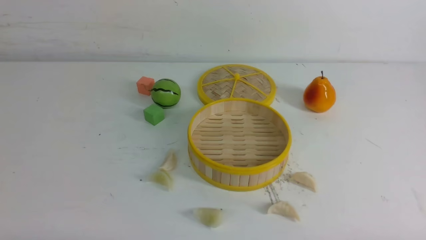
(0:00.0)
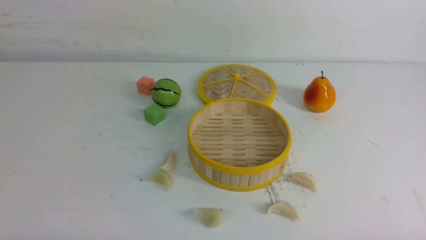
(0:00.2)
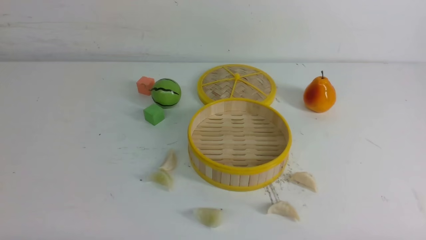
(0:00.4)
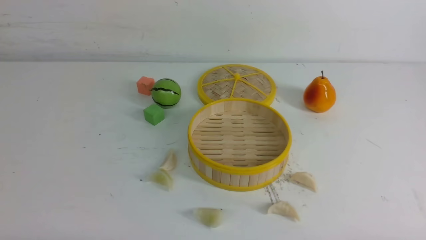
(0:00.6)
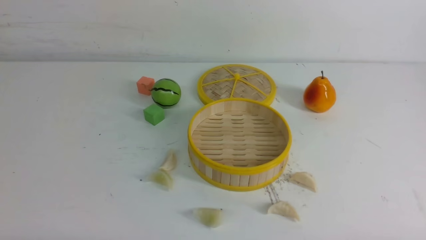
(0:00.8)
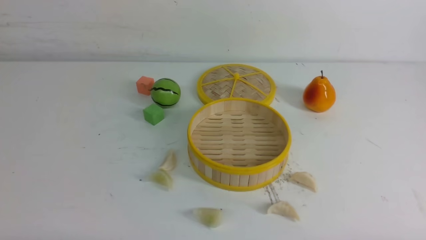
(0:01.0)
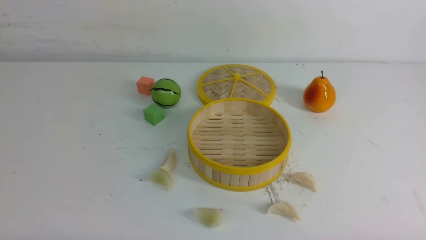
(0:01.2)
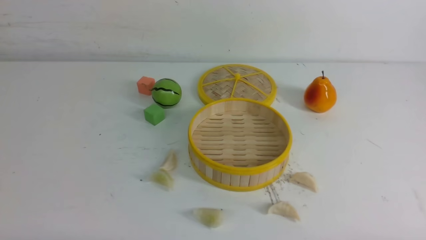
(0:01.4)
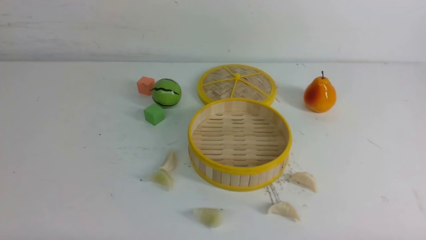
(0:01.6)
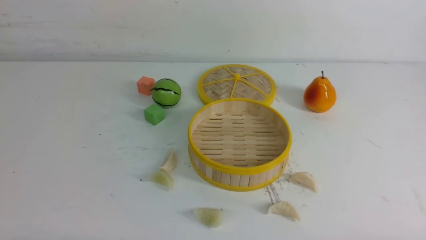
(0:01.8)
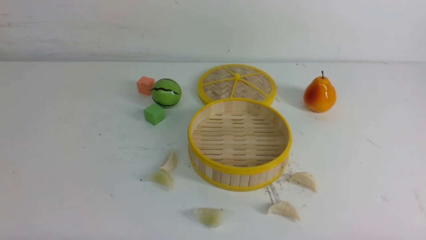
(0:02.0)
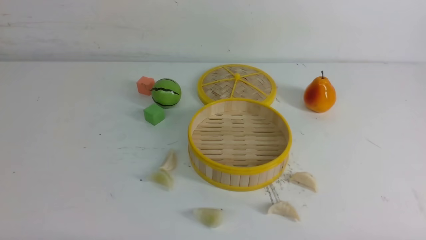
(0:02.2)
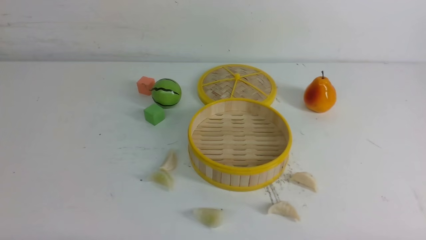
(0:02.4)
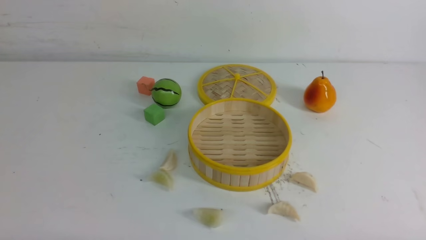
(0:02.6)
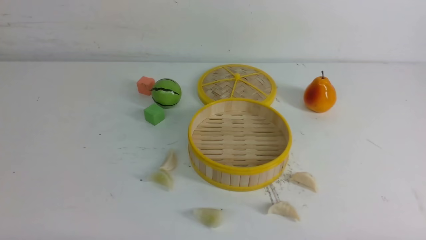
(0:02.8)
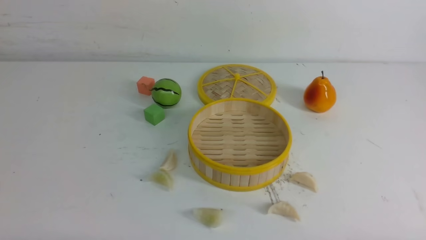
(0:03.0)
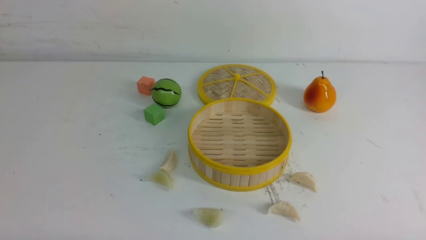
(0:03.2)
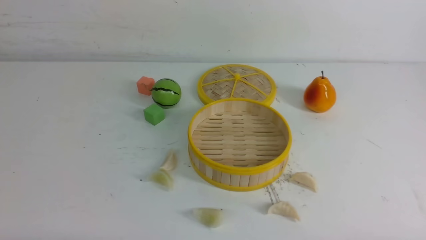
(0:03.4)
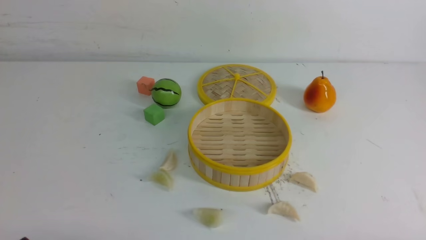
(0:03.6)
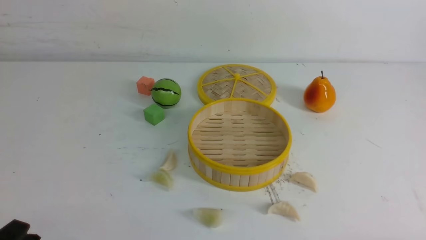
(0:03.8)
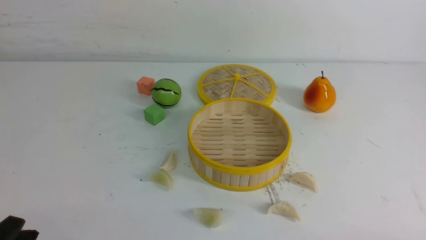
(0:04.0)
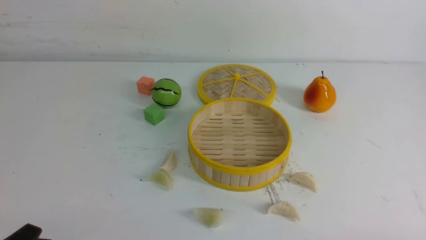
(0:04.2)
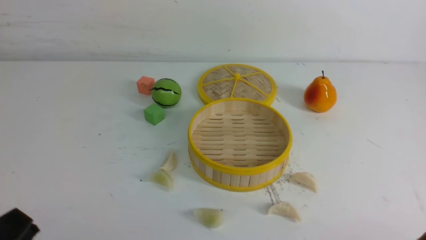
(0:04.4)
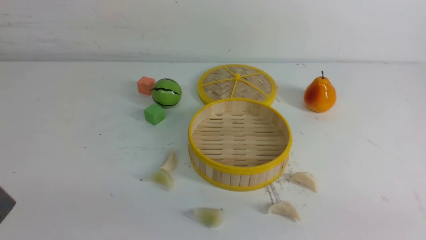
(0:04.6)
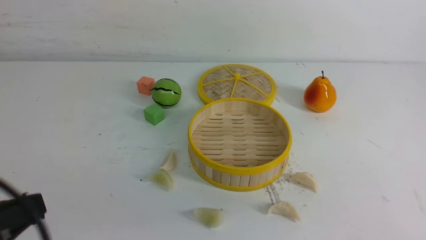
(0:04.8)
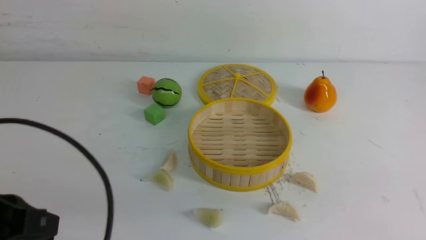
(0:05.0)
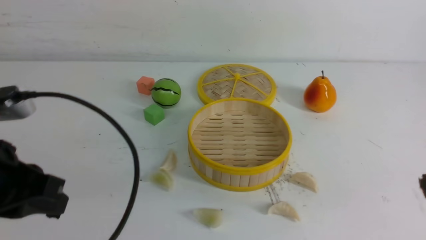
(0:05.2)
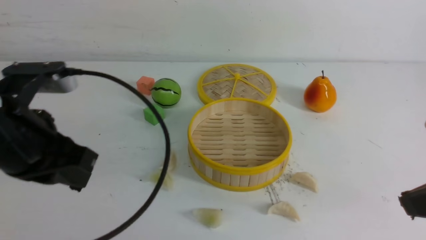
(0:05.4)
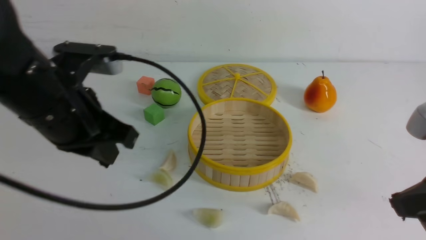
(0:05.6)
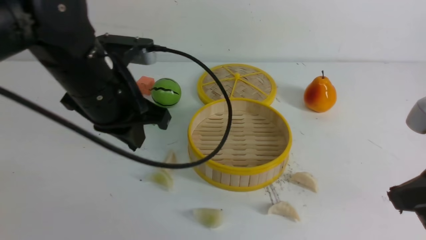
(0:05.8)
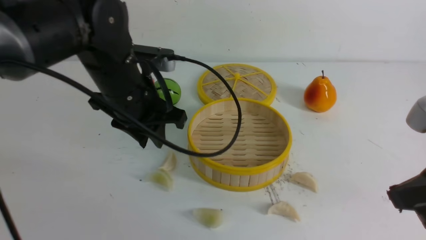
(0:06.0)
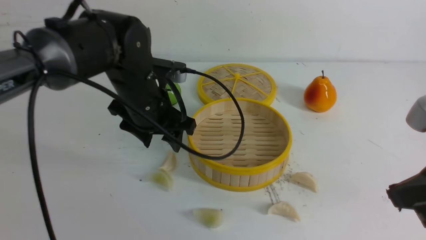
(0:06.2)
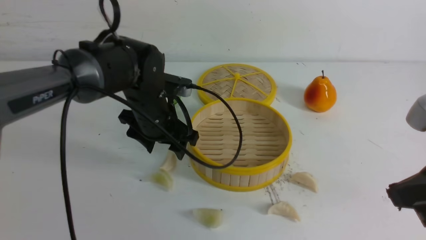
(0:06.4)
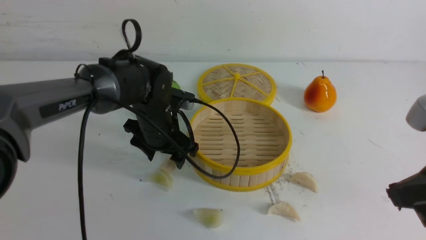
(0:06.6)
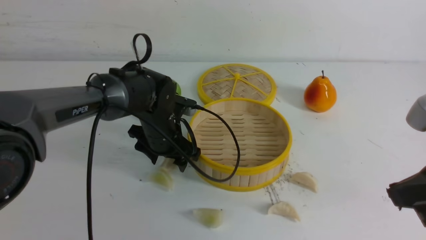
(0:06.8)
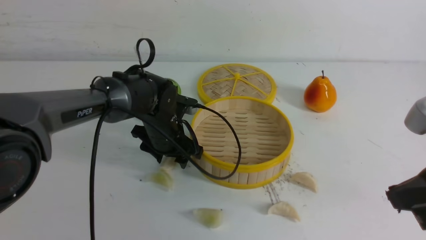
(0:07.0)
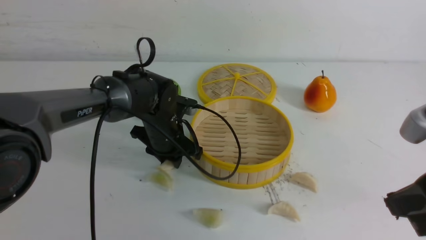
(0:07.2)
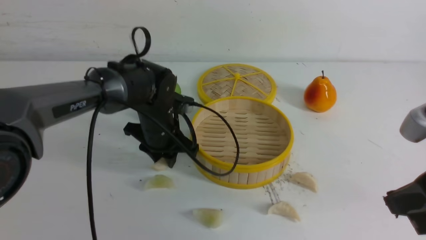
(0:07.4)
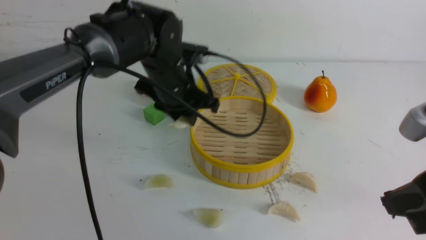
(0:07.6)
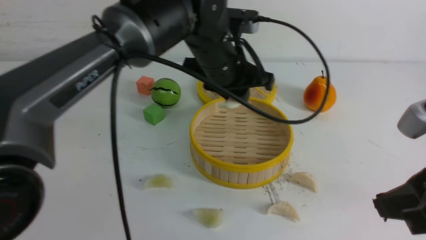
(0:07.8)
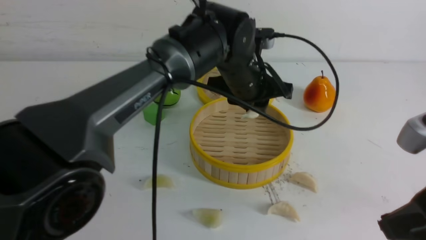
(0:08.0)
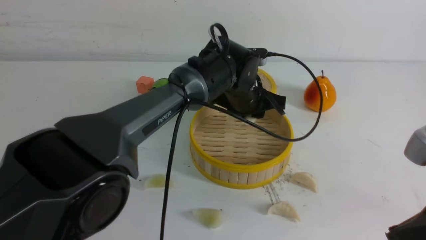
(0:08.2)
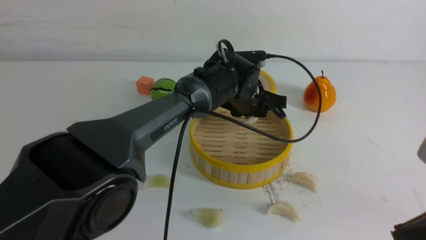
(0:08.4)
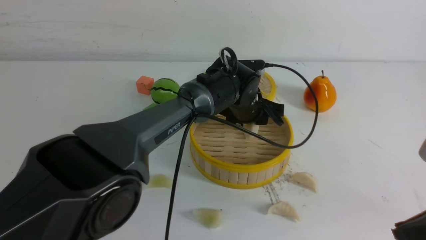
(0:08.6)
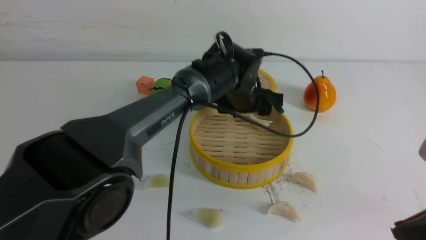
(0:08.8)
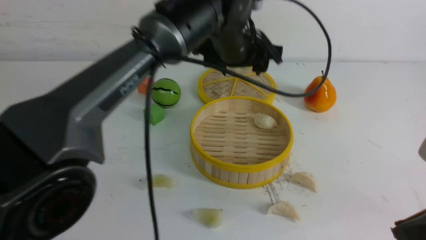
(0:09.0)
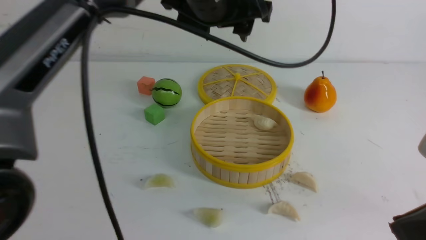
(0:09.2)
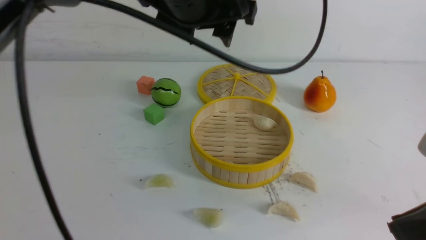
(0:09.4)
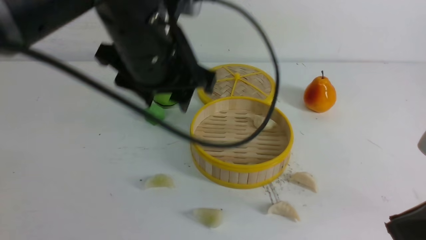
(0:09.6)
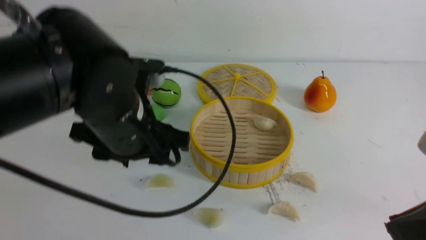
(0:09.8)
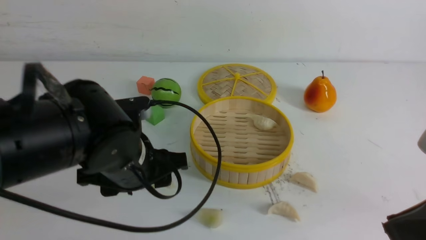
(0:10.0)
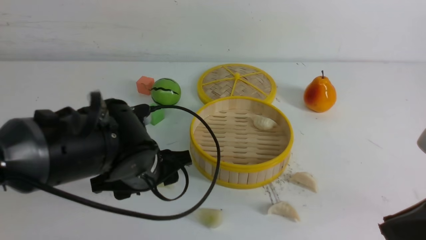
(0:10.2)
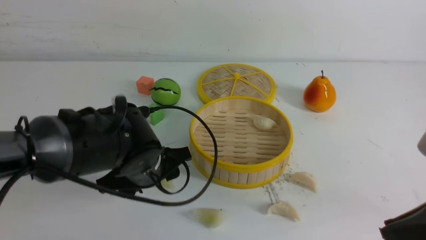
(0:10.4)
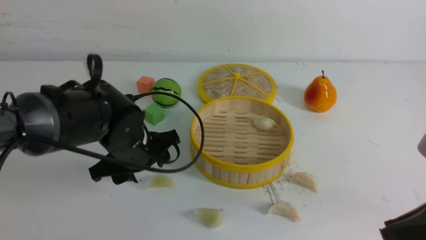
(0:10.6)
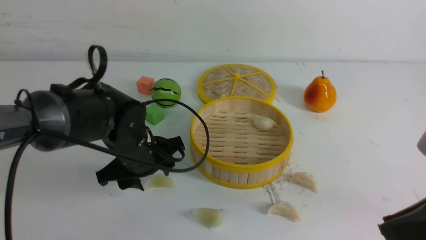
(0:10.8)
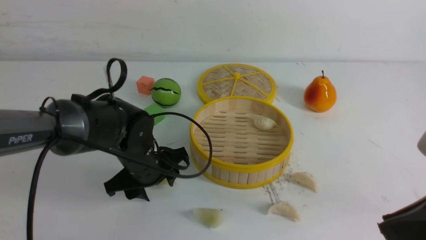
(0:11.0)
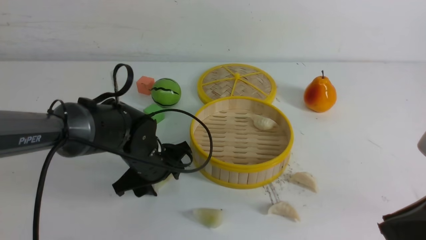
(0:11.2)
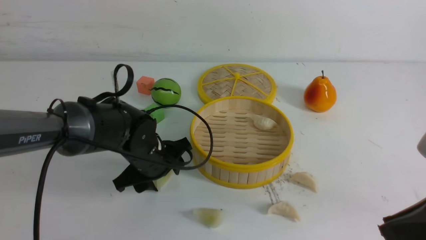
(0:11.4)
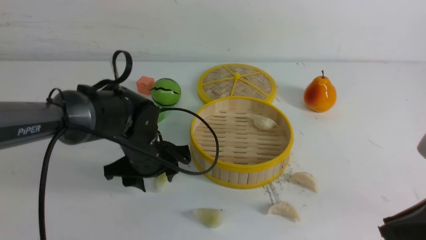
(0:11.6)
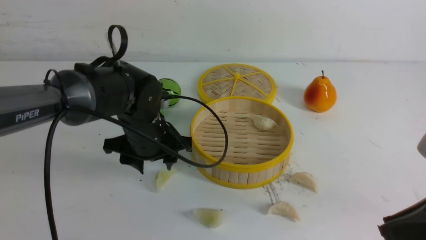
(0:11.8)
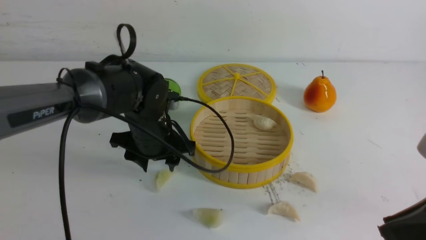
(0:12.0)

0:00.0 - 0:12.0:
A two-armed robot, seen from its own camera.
Task of the whole recording: put the dumplings into the steamer on the white table.
Step, 0:00.0 - 0:07.2: use the left arm to grab a dumpling.
Step, 0:07.4 - 0:08.6: use the left arm to put the dumpling into the steamer.
0:01.6 - 0:03.0: The two grippers keep their place.
0:03.0 - 0:04.4: The left gripper is displaced upward by roughly 5 cm.
0:04.4 - 0:06.0: The right gripper shifts roughly 20 cm upward and forward, and closes up. The left gripper travels forward and to the right by some 30 cm, and closes, then opens again.
0:06.0 - 0:07.6: The left gripper heads forward, downward and to the right, covering some 15 cm, and opens, then closes again.
0:07.6 - 0:09.0: The left gripper travels to the right and upward by some 10 cm, and opens its fingers.
0:09.0 - 0:10.4: The left gripper heads backward, to the left and downward, covering roughly 20 cm.
0:10.4 - 0:12.0: The left gripper goes approximately 10 cm forward.

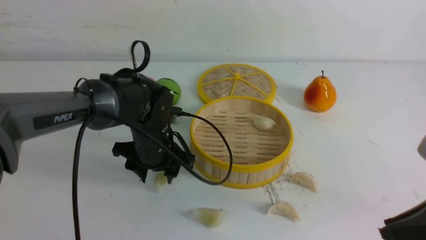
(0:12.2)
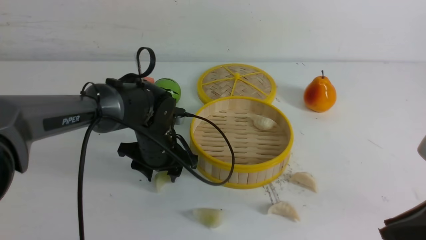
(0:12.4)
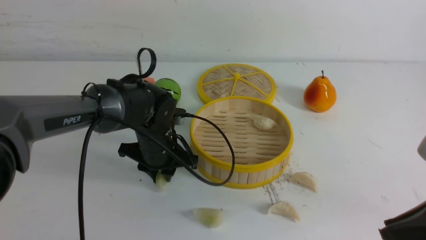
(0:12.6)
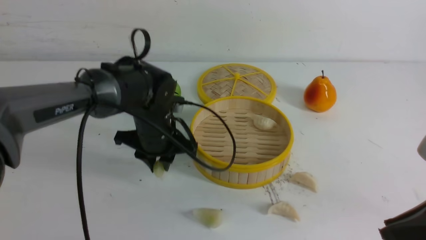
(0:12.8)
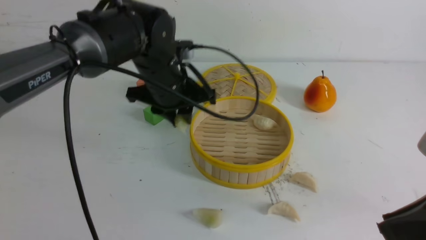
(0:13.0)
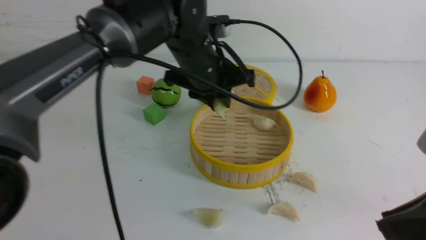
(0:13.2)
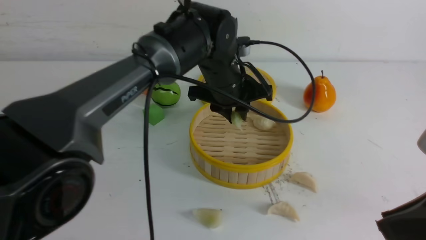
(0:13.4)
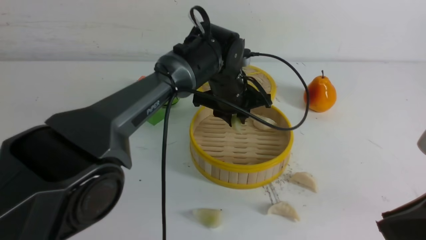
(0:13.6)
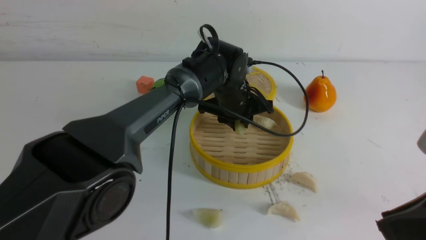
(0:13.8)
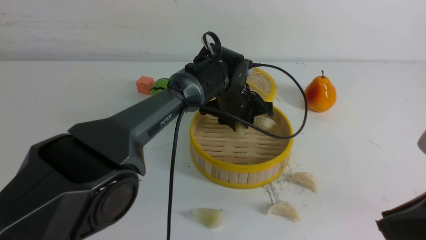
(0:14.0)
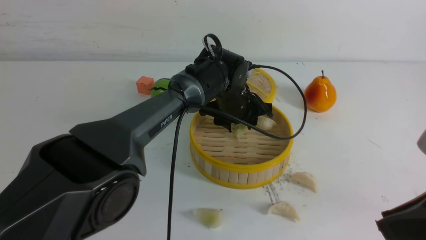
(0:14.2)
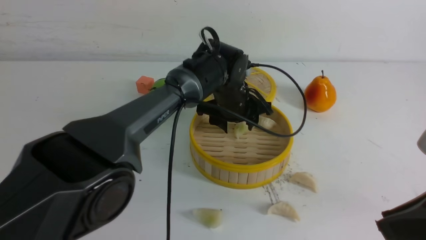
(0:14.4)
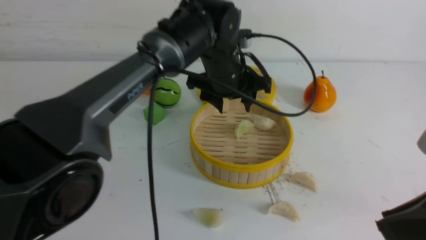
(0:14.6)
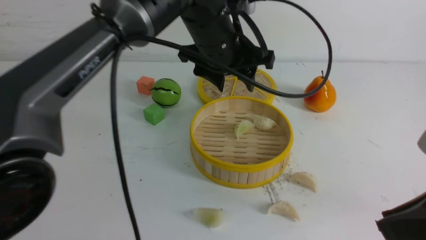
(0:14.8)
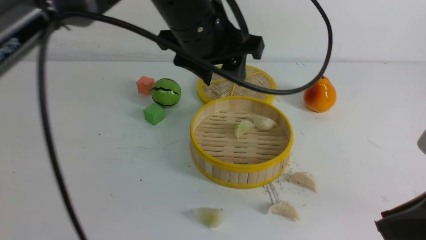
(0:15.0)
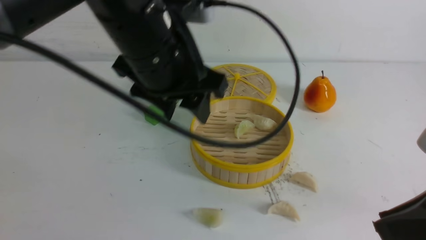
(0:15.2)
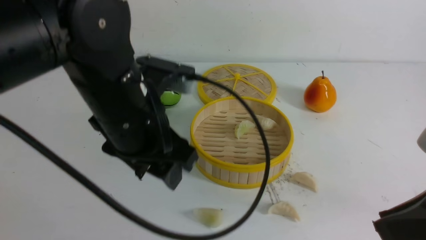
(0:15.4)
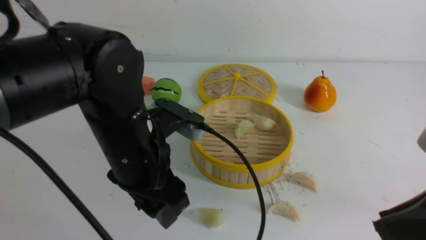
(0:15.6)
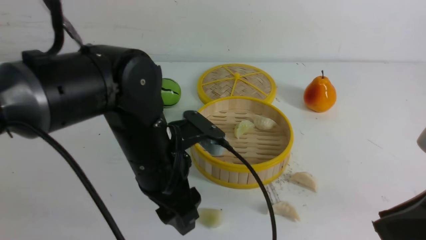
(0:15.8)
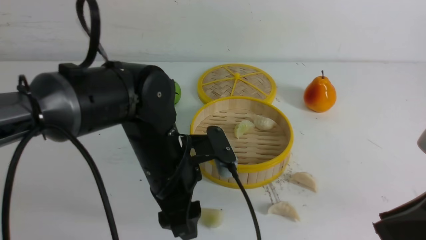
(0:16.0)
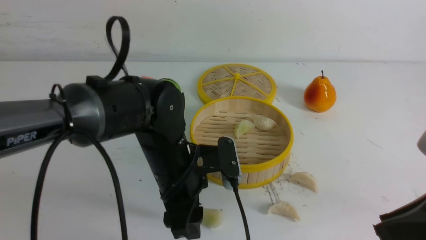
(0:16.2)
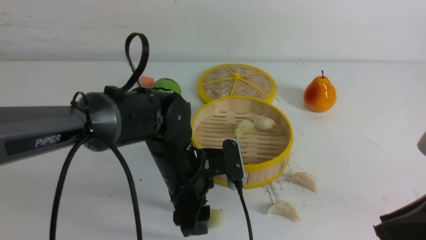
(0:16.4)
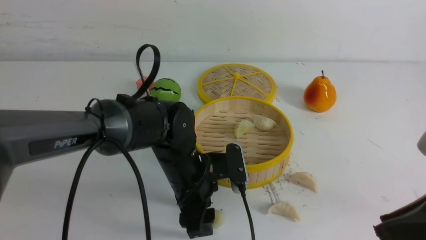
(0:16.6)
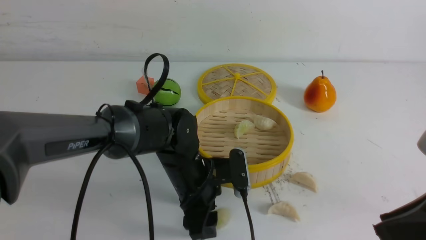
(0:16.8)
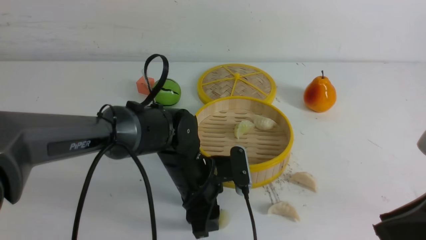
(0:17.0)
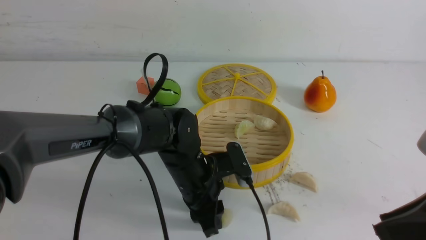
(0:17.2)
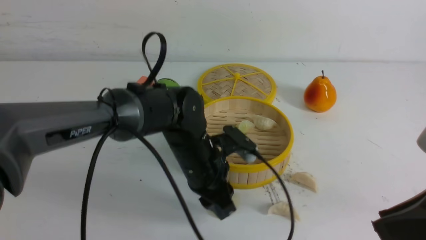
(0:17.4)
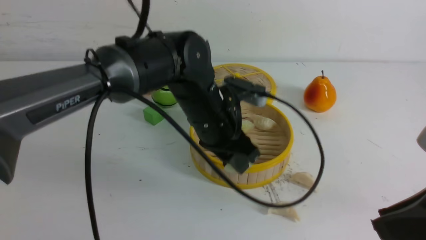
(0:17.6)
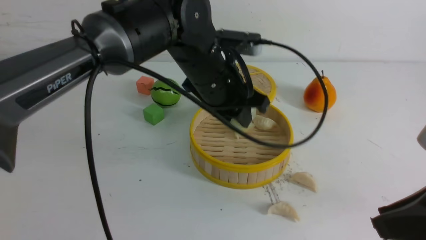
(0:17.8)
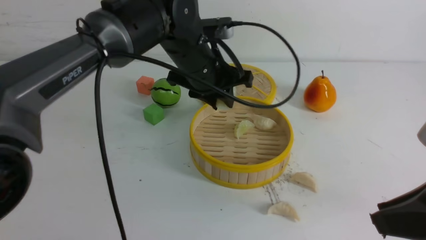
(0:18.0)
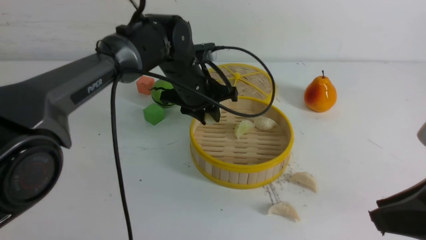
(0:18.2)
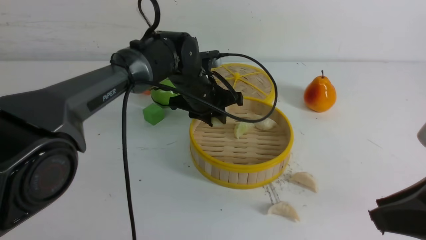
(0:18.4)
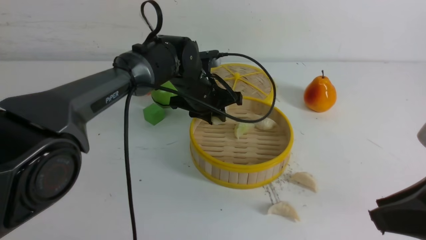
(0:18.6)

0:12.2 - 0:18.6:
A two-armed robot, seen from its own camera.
Task of the whole recording: put the dumplings into the steamer on the white table.
Step, 0:12.8 - 0:14.0: use the left arm to put the dumpling into the steamer.
Step, 0:14.2 - 0:17.2: use the left arm to grab a dumpling.
0:12.2 - 0:13.8: The left gripper moves to the right and forward, roughly 15 cm, and closes.
0:13.8 - 0:15.4: The left gripper moves backward, upward and to the left, roughly 25 cm, and opens its fingers.
0:15.4 - 0:17.0: The left gripper heads downward, covering roughly 20 cm.
0:17.0 - 0:18.6: The left gripper shifts about 15 cm forward and upward.
